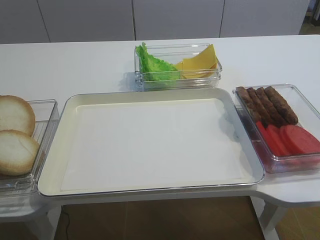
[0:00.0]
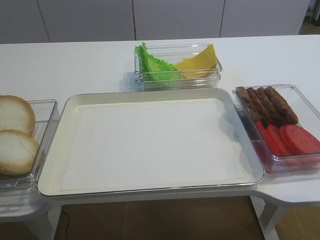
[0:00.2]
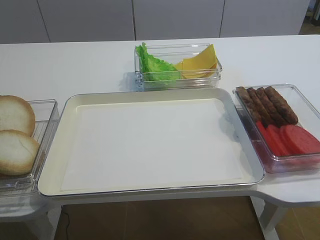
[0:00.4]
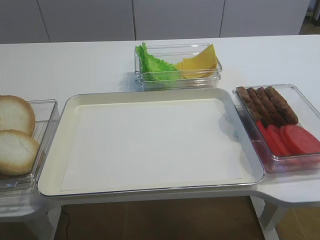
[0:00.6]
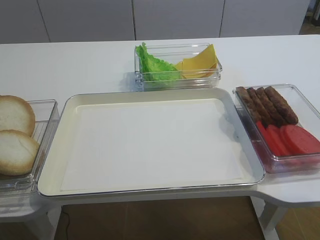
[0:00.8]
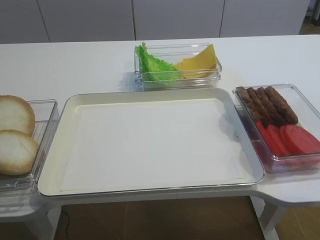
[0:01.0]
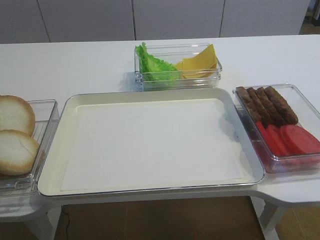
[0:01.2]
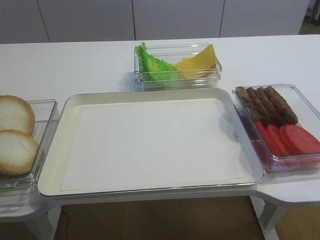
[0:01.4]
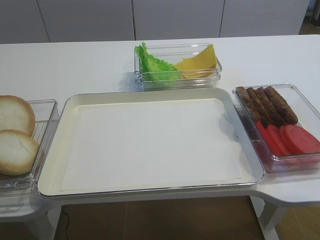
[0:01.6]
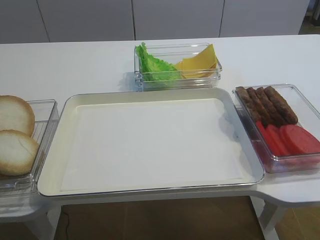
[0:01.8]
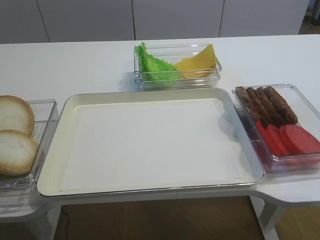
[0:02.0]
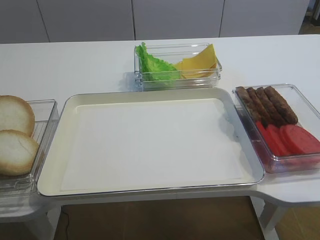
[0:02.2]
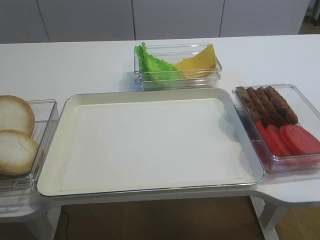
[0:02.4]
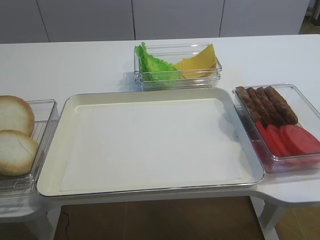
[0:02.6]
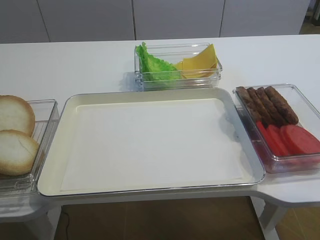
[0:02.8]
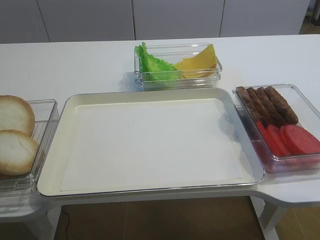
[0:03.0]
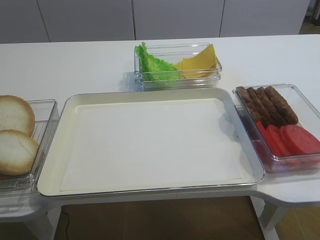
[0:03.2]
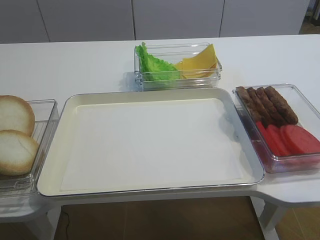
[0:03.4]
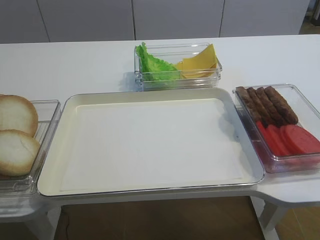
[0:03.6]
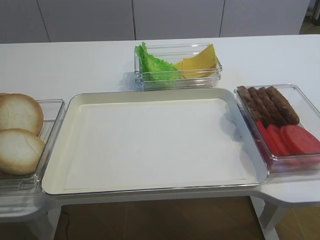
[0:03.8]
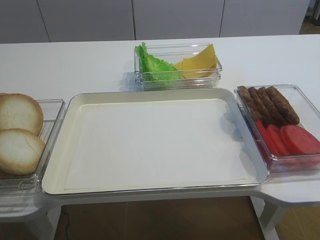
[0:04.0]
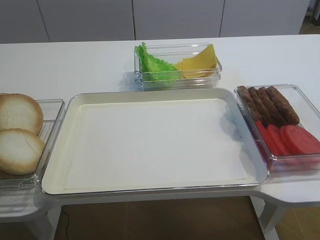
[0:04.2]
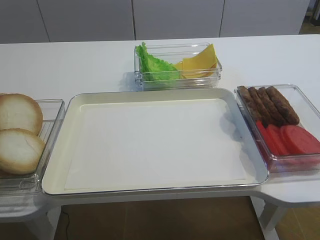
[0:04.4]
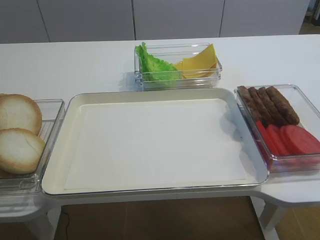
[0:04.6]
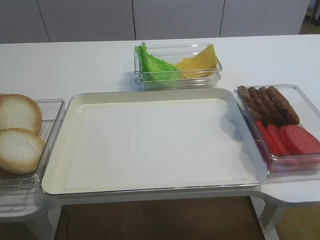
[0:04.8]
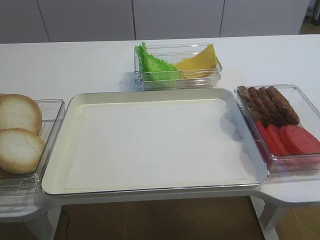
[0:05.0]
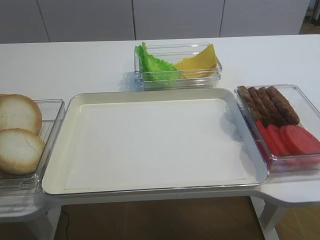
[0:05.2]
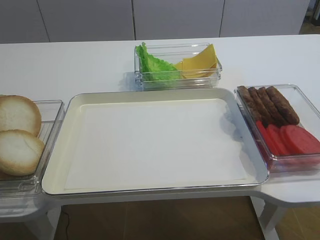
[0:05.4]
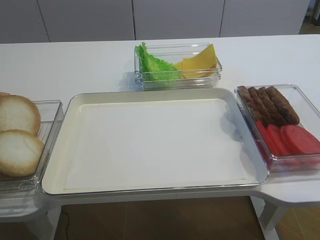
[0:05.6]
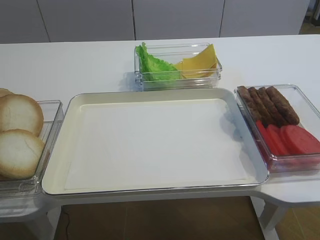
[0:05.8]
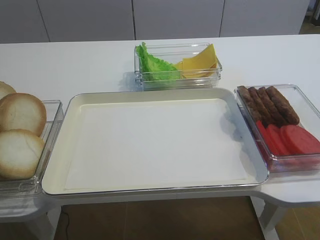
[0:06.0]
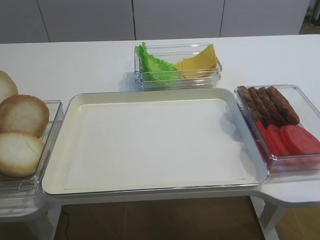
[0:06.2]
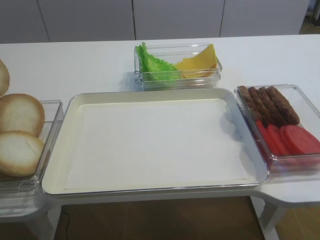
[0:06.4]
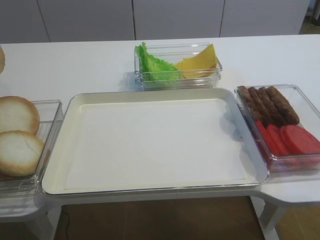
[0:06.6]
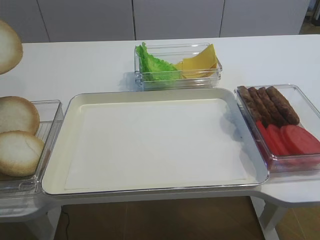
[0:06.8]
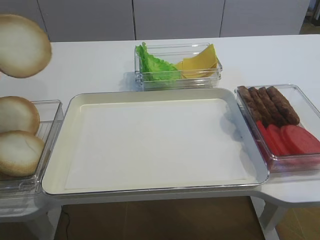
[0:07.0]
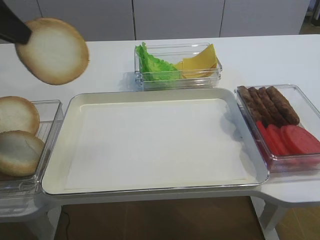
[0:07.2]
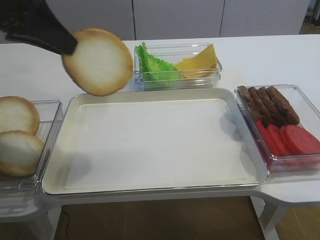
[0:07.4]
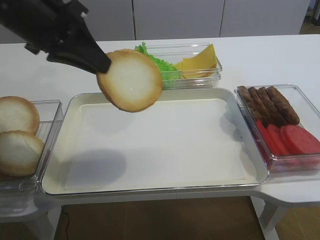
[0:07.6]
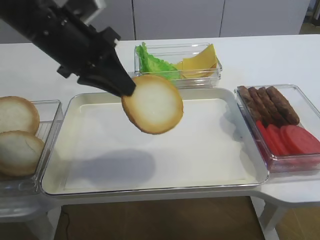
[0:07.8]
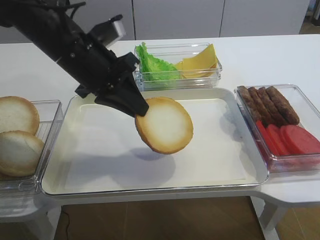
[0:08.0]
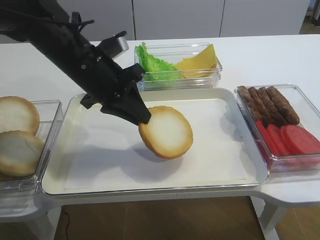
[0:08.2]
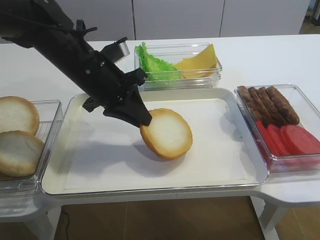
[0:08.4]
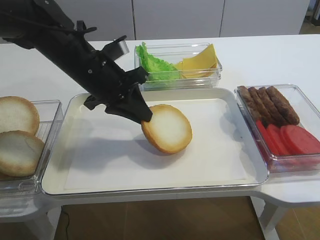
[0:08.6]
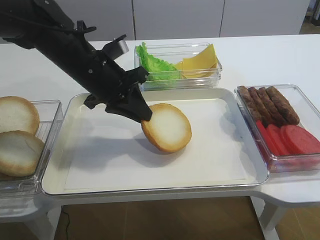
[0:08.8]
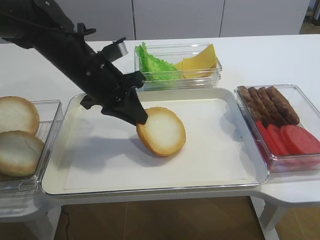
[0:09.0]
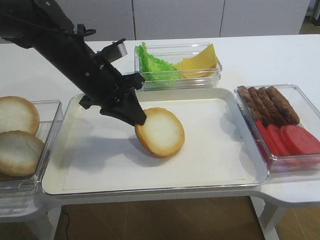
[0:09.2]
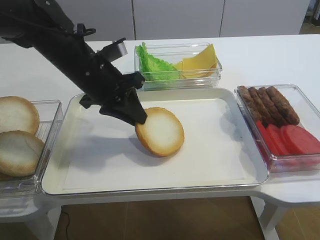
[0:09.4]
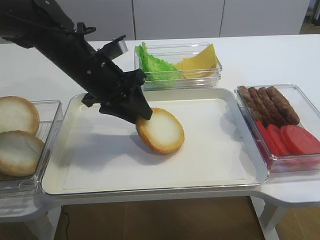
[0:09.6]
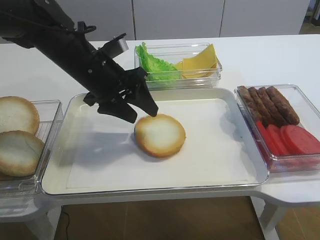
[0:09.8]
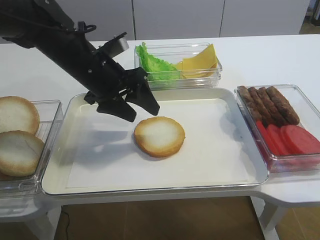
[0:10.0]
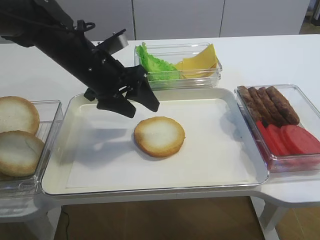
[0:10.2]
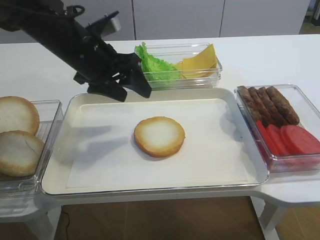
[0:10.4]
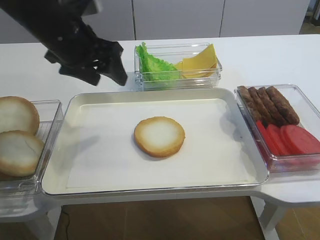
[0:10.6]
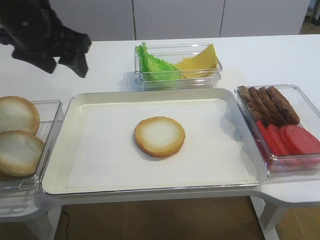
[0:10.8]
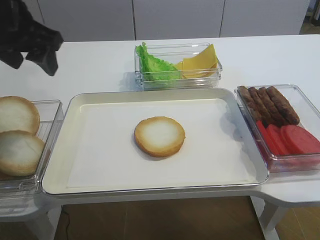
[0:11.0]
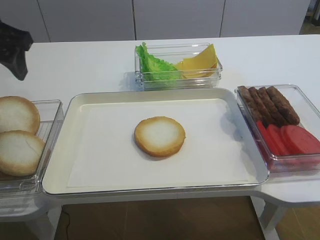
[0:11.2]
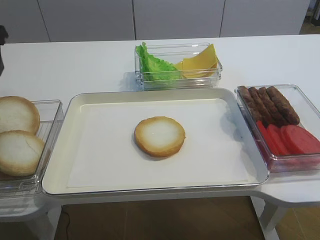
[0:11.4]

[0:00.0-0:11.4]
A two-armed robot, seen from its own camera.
Step, 0:00.0 to 0:06.2: Pick up the bread slice with the left gripper.
Step, 0:06.6 to 0:10.2: Place the bread slice on the tray with the left gripper.
0:02.8 to 0:04.2: The right gripper closes up, while the left gripper closes.
0:05.6 to 0:07.2: The left gripper moves upward and to the right, roughly 15 cm.
0:07.2 to 0:08.6: The left gripper heads to the right, downward and forward, covering about 20 cm.
0:08.6 to 0:10.0: The left gripper opens up.
0:10.0 to 0:11.4: The left gripper shifts about 20 cm to the left and upward.

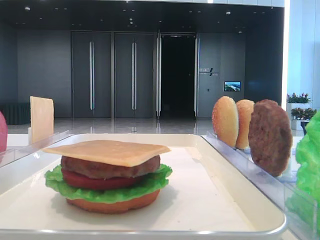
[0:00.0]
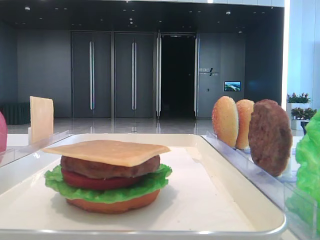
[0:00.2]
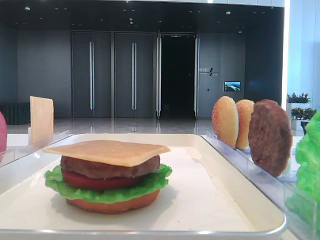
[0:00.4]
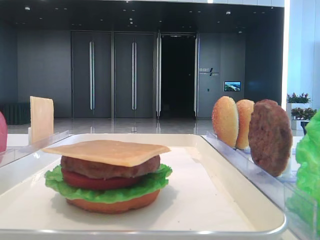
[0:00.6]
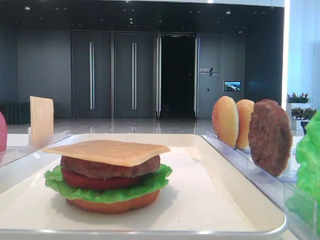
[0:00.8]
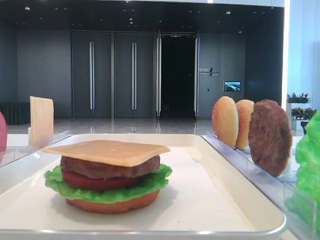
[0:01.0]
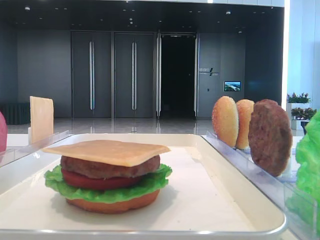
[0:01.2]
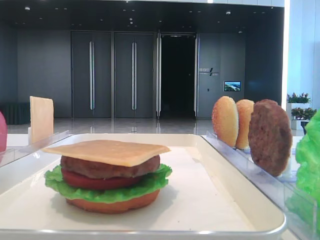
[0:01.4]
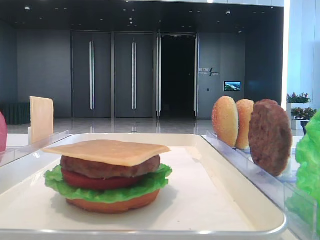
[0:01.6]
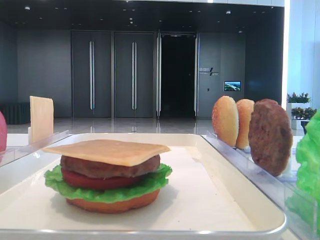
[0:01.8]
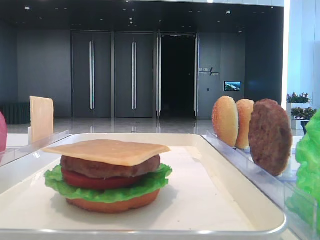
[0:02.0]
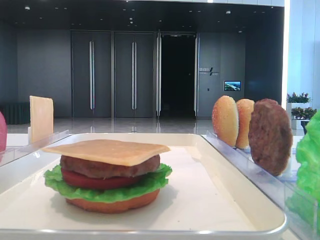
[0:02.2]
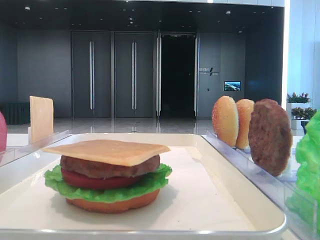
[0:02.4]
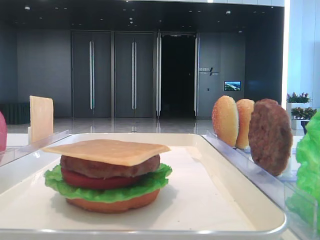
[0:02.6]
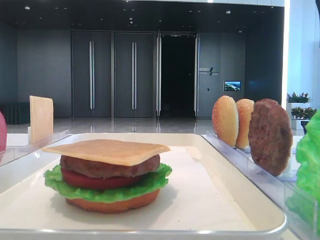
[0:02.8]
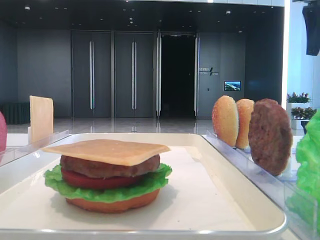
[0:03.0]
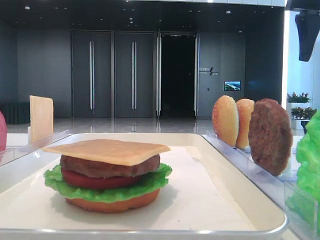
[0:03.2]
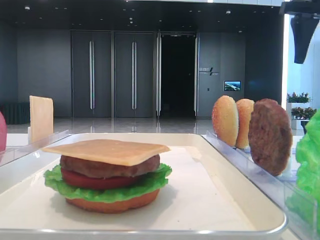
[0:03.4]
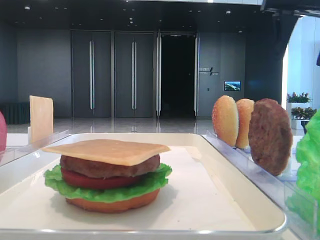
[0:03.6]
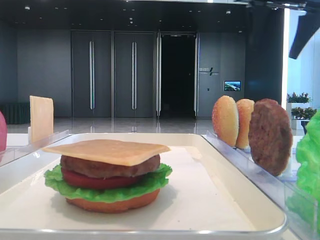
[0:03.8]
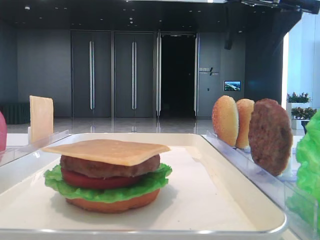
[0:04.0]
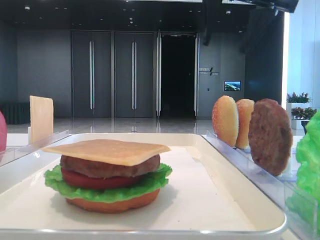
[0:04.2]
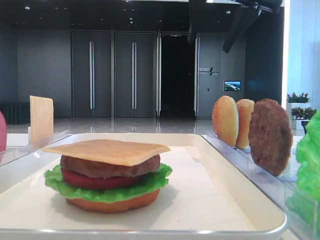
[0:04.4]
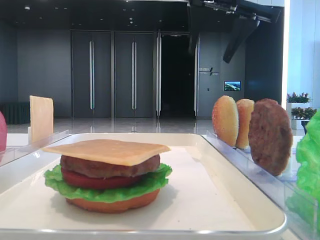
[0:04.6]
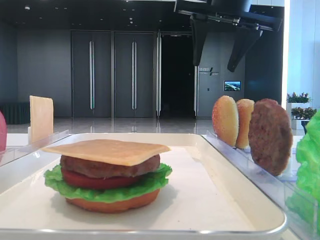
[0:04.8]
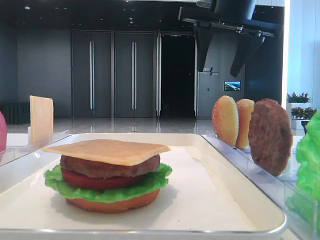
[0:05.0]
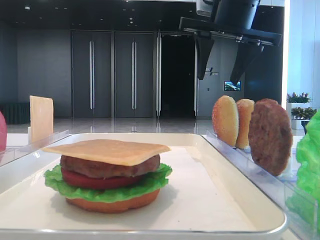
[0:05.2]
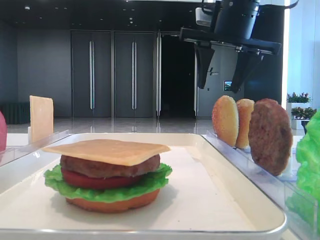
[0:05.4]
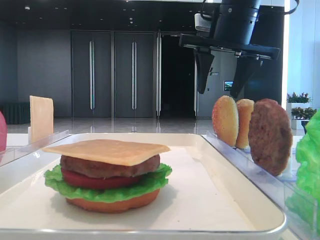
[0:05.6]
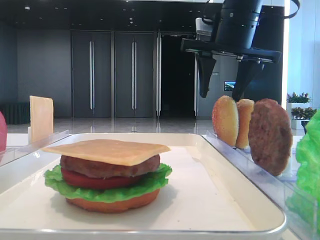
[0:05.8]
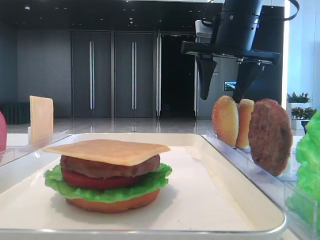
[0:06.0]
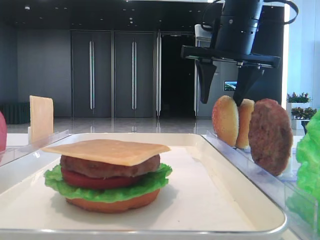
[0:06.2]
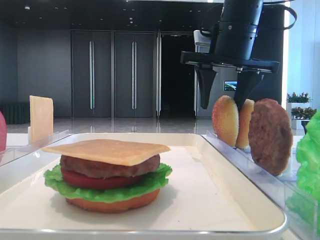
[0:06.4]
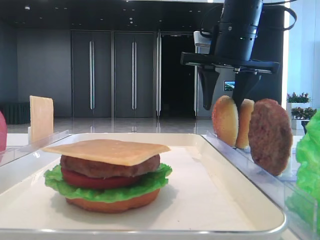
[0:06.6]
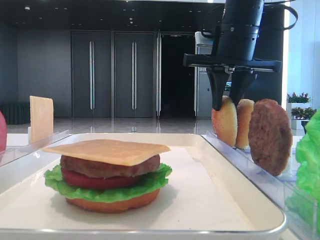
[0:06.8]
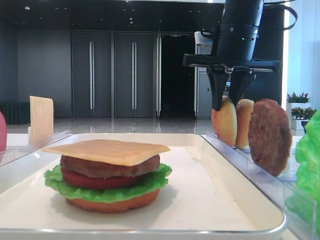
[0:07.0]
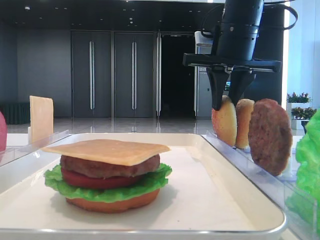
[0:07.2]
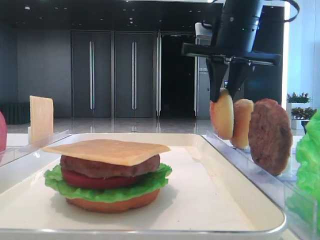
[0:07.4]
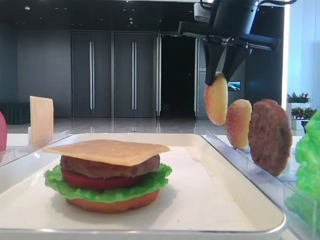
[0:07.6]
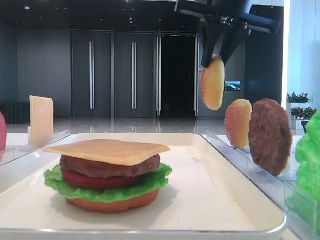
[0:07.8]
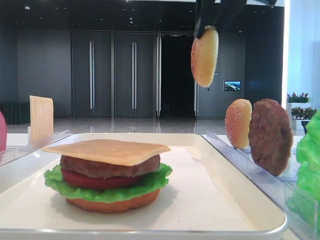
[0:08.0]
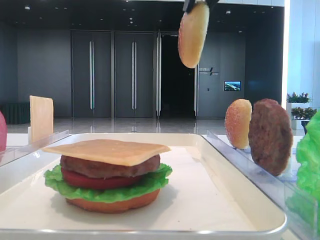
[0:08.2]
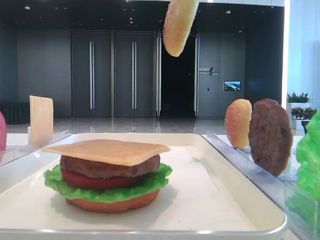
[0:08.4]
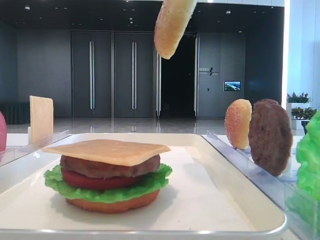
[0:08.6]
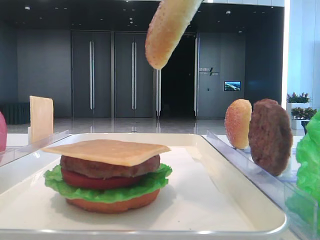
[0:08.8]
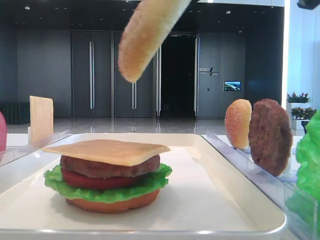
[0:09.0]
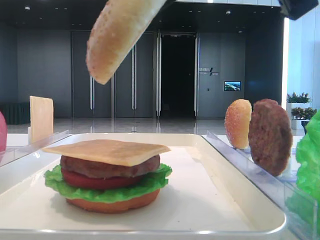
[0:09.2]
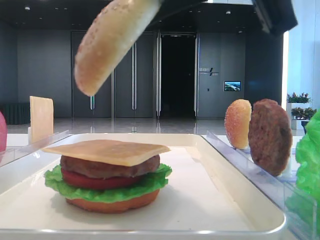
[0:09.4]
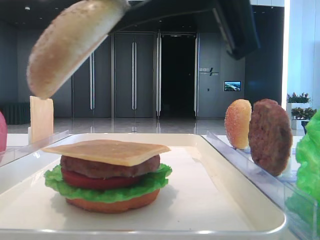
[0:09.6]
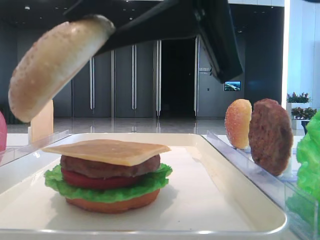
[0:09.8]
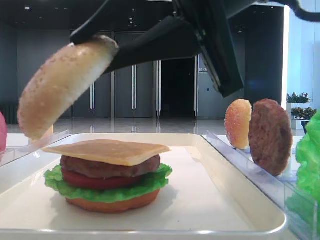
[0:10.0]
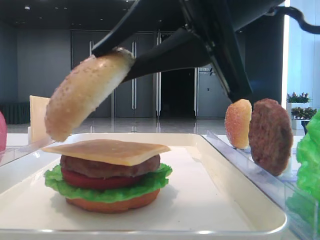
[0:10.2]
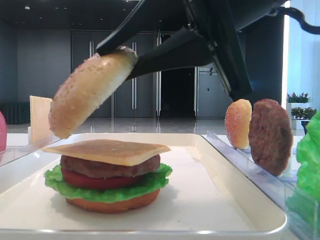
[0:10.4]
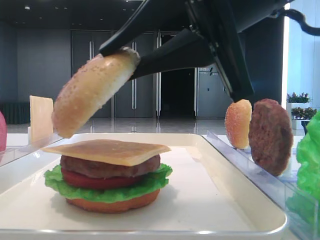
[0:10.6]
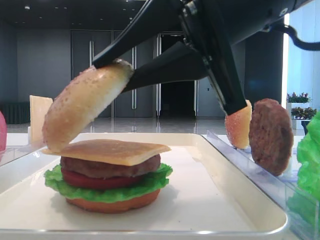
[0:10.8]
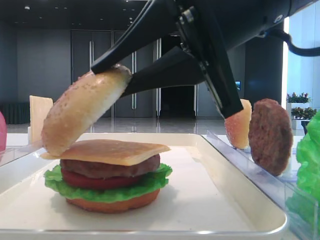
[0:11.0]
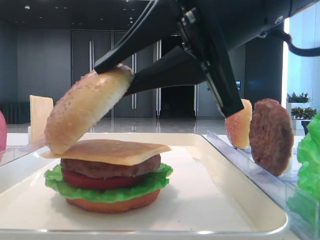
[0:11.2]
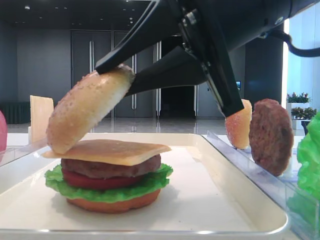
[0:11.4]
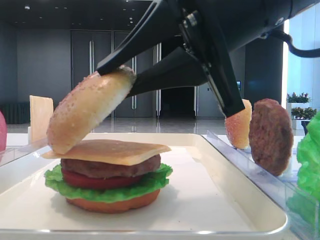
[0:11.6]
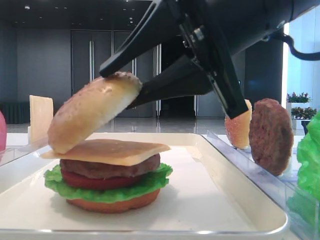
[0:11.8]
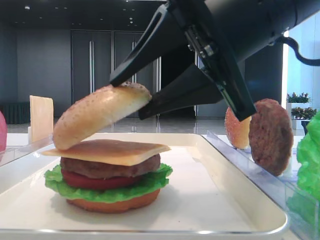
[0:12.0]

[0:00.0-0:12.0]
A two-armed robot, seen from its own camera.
Step, 0:00.0 to 0:06.6: Pick up the top bread slice with the right hand.
0:01.6 to 0:03.0: The right gripper shifts some 30 cm forward.
0:03.0 to 0:04.4: The right gripper travels to the left by approximately 15 cm.
0:04.4 to 0:06.0: The right gripper is displaced downward by some 10 cm.
0:06.0 to 0:07.6: The right gripper closes.
0:07.6 to 0:09.0: The right gripper travels backward by about 25 cm.
0:09.0 to 0:10.4: The right gripper is displaced downward by roughly 5 cm.
0:10.4 to 0:12.0: The right gripper opens.
